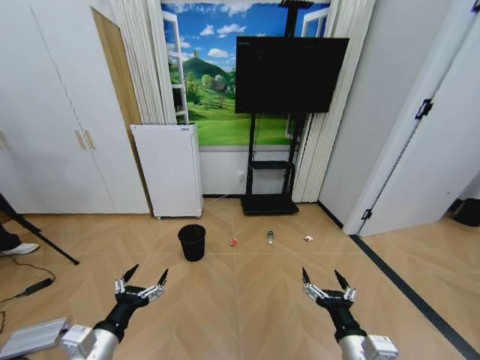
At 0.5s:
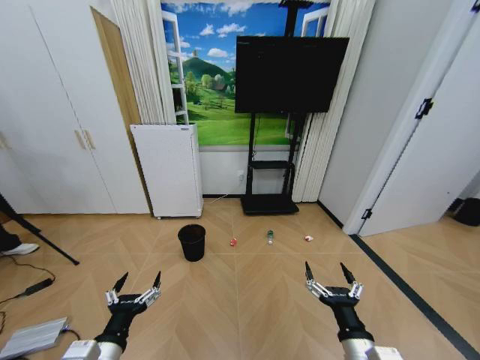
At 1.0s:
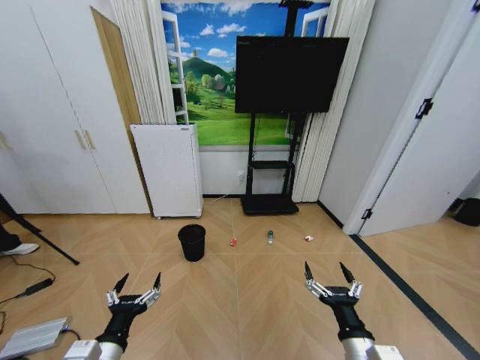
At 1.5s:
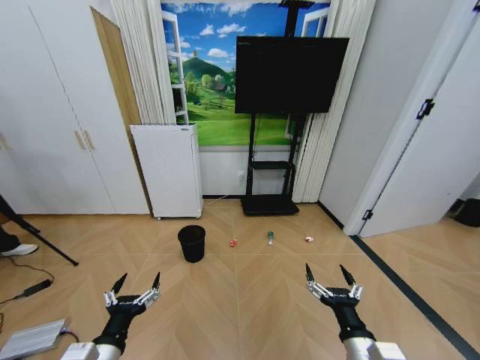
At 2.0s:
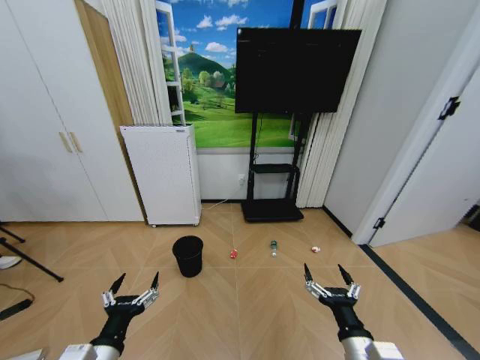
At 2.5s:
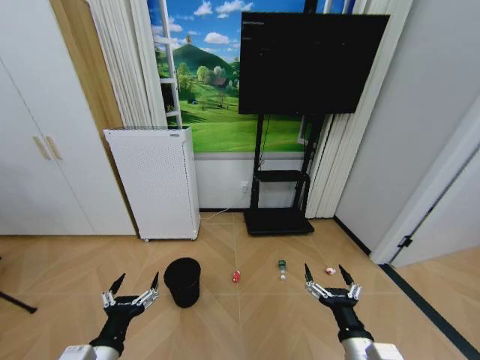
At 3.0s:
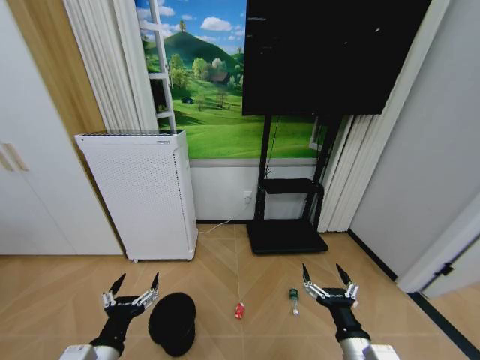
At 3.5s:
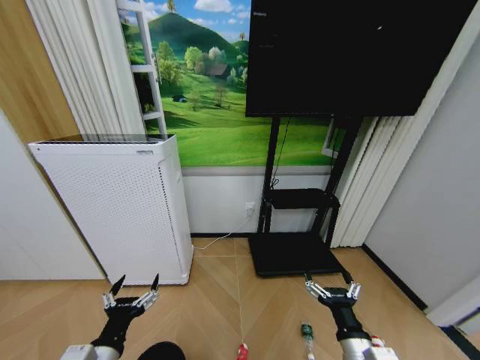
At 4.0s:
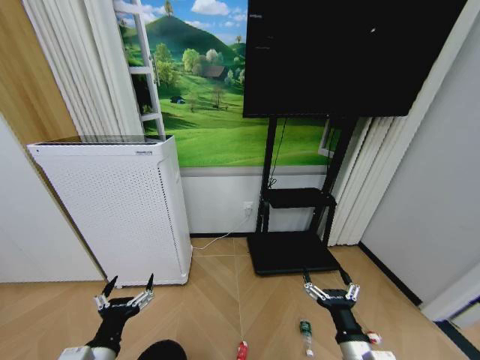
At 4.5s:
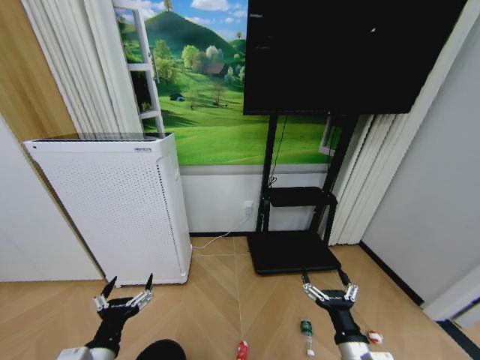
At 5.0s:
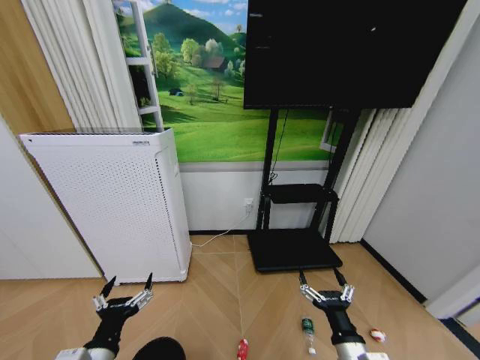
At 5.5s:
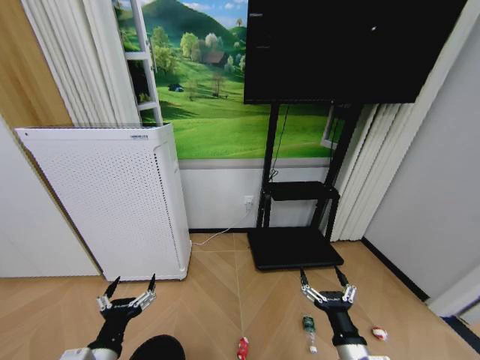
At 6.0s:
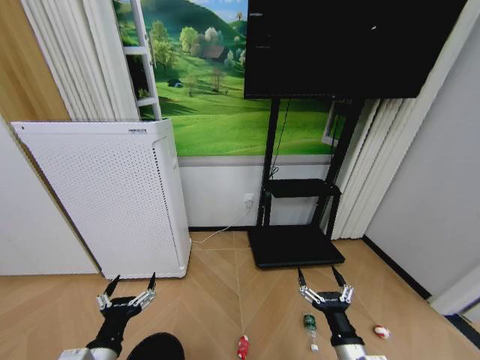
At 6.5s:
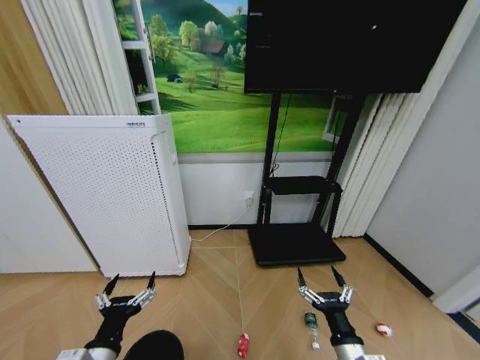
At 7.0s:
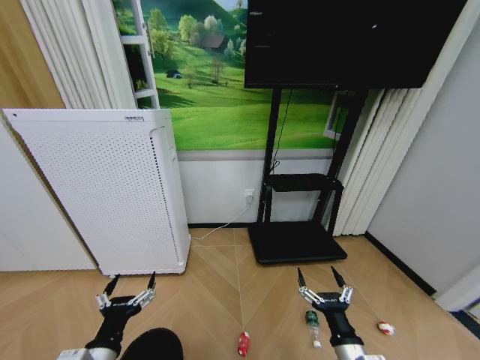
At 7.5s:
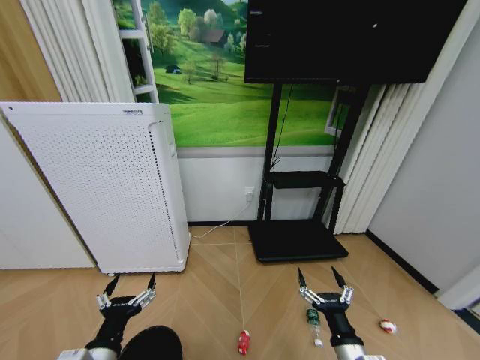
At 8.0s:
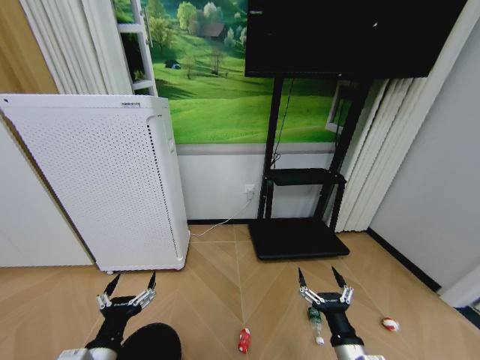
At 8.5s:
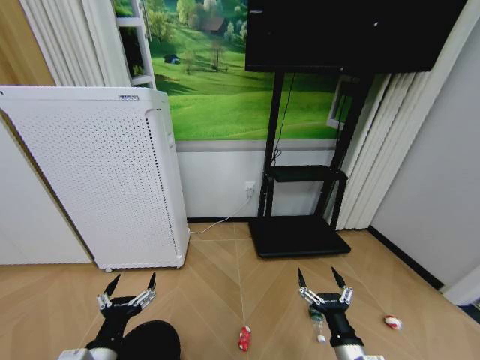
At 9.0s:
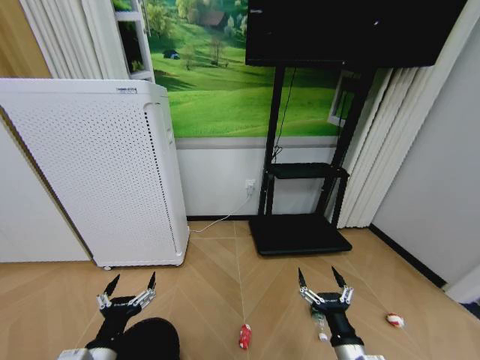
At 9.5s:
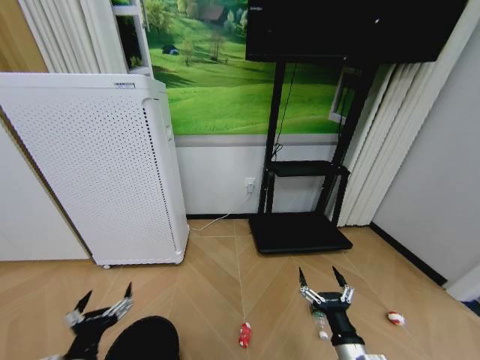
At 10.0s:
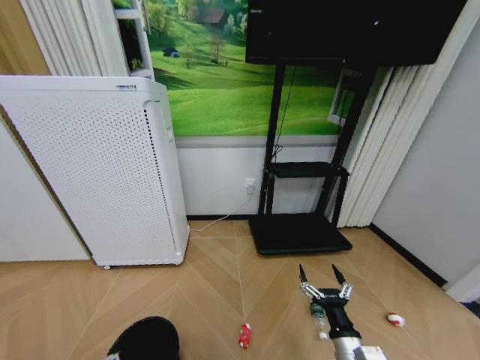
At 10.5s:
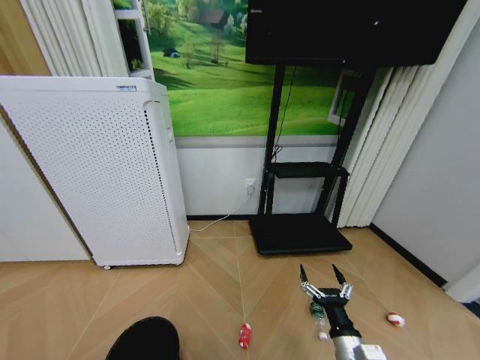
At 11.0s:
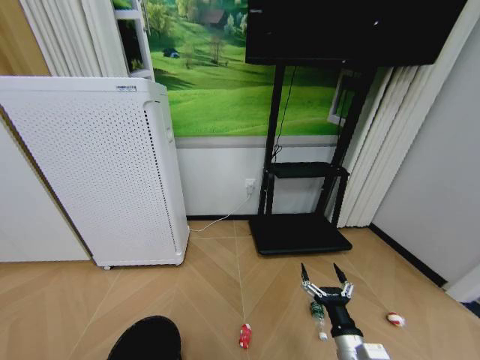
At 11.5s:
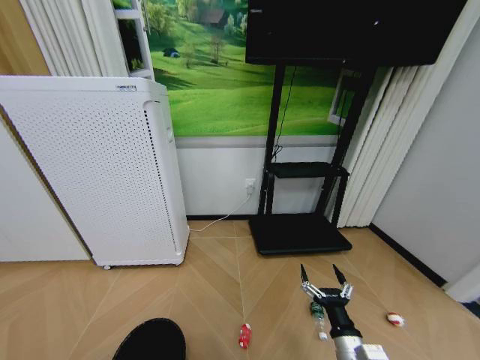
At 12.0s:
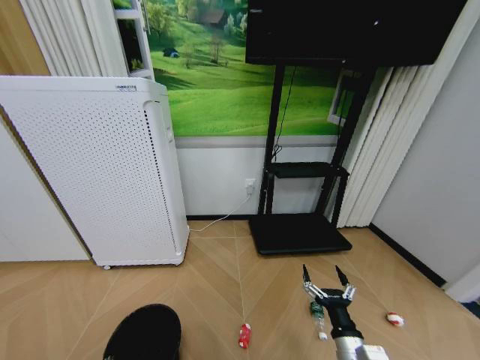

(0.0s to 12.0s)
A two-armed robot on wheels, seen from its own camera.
Task of the whole recording: Pick up the trash bin and place the garbage on the floor into it.
6.0s - 8.0s: Neither gripper changes place.
8.0s - 10.0s: The left gripper heads to the left, covering approximately 10 cm.
10.0s - 12.0s: The left gripper goes some 5 cm downward, and closes.

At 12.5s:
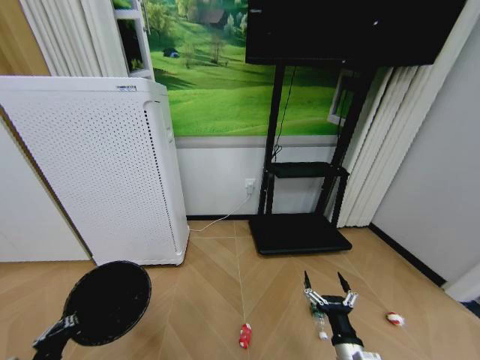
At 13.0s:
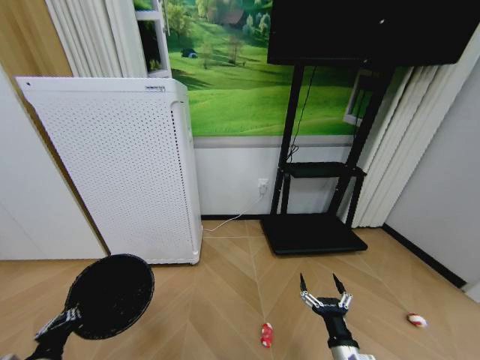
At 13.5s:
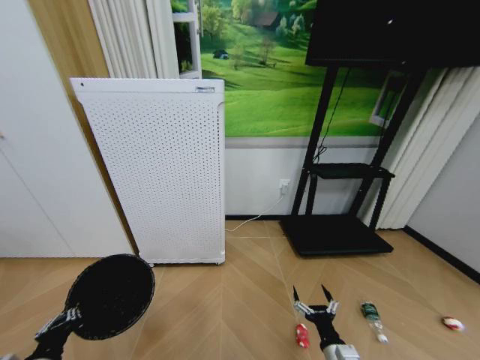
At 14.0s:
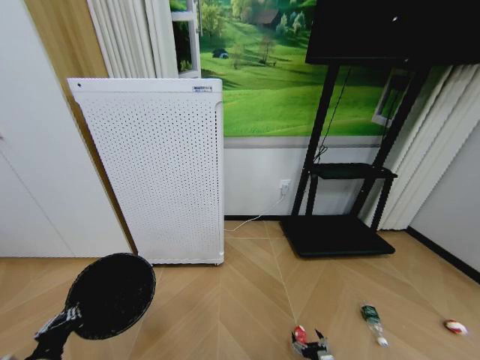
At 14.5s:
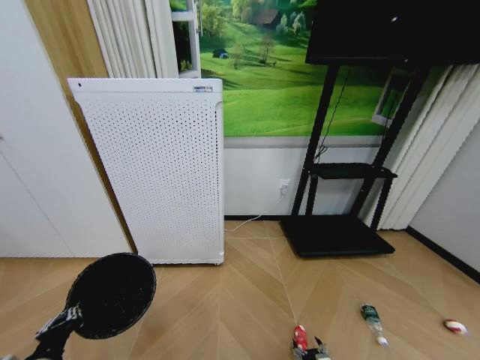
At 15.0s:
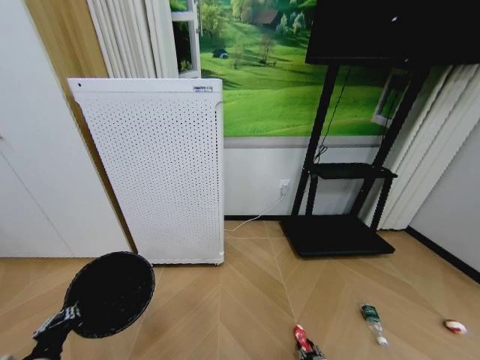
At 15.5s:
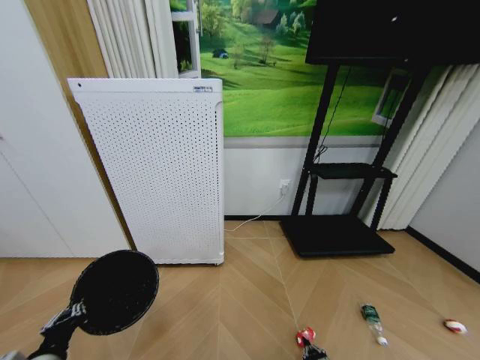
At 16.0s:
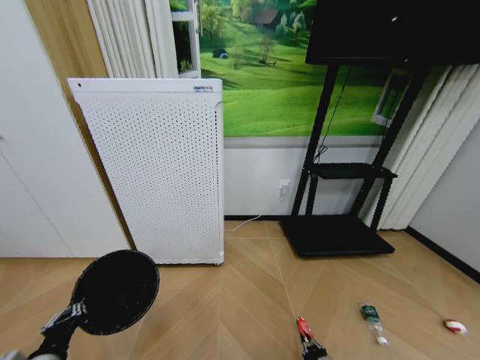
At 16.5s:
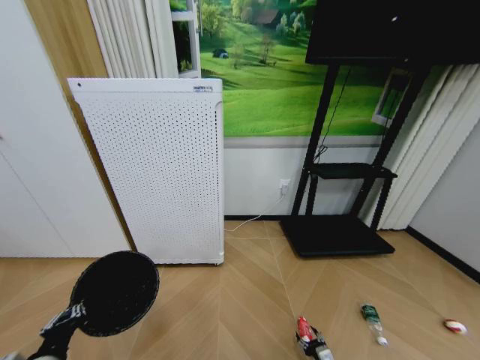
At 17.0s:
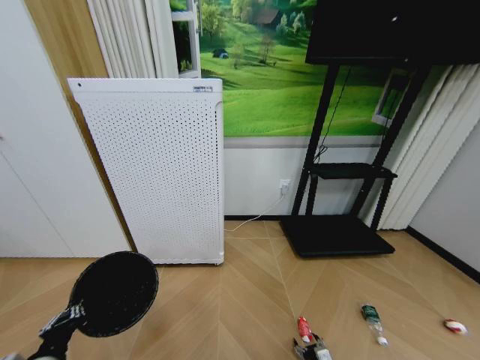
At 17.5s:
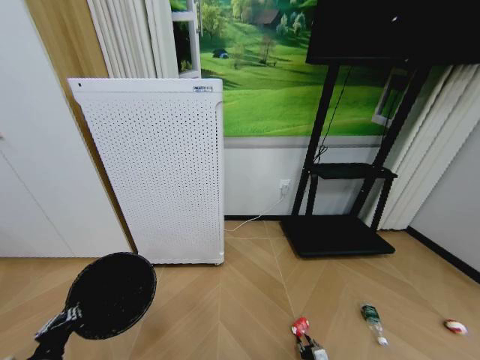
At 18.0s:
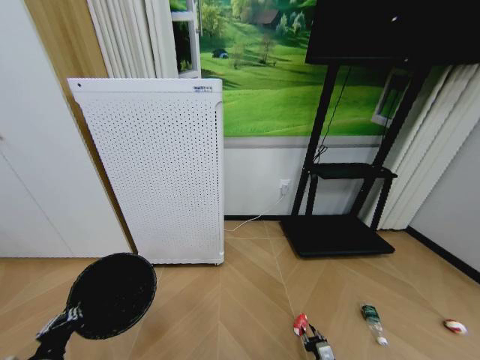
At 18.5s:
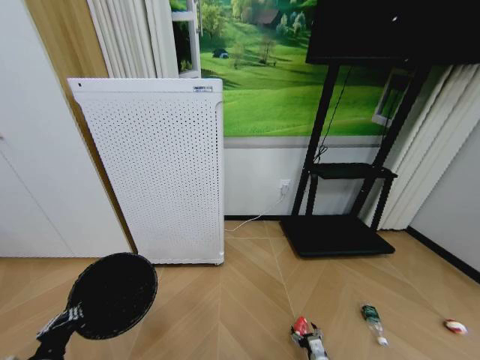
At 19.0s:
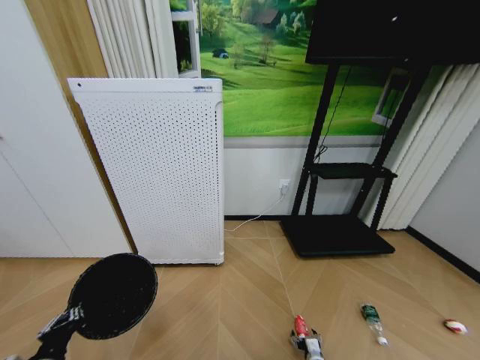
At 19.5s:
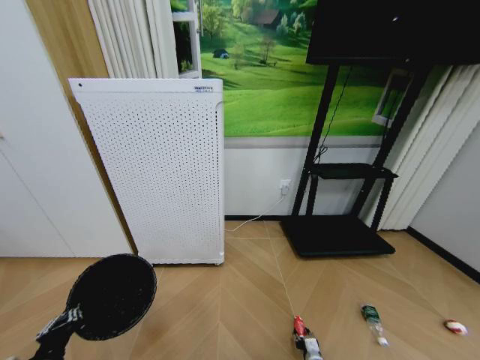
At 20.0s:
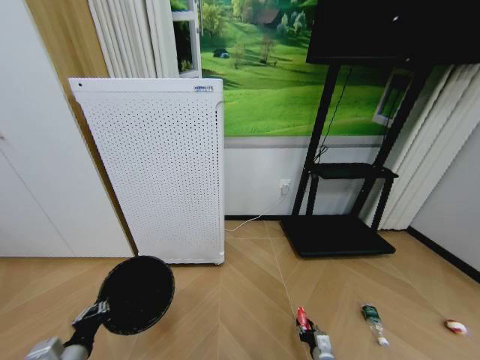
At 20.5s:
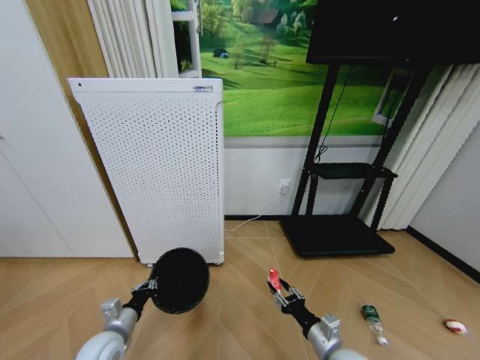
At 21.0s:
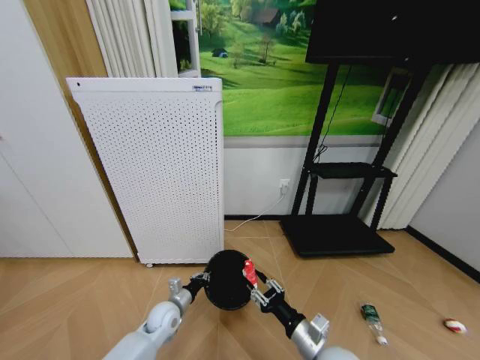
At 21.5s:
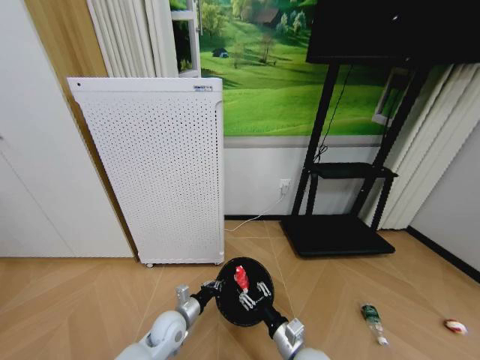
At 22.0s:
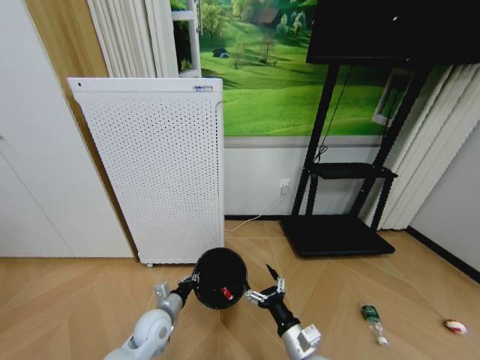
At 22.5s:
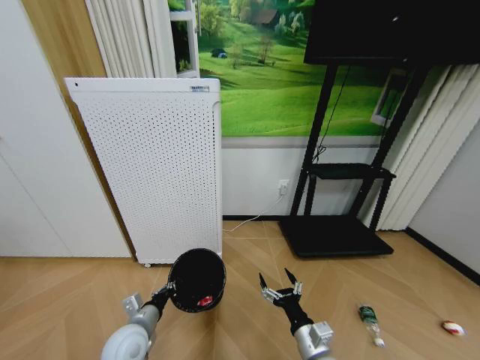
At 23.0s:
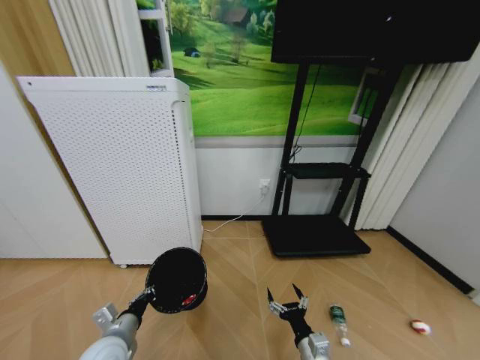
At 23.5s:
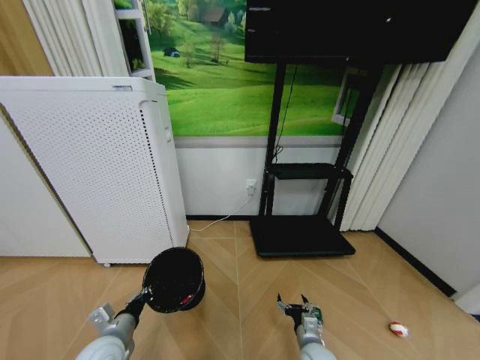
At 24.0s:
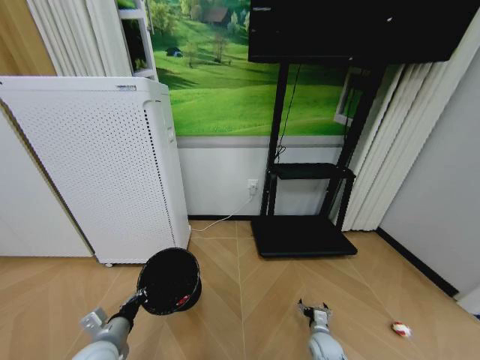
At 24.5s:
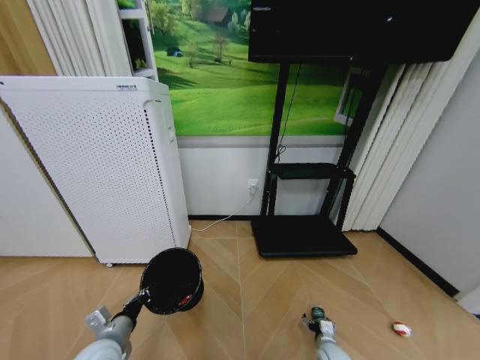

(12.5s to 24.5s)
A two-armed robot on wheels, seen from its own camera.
Task of the whole recording: Pick up the trash bin and place the garbage on the floor into it.
12.5s - 14.5s: The right gripper shifts roughly 20 cm downward.
18.5s - 20.5s: The right gripper is displaced upward by some 20 cm, and closes, while the left gripper travels forward and downward by about 15 cm.
20.5s - 22.5s: The left gripper goes roughly 5 cm to the right. The right gripper goes roughly 5 cm to the left, and opens.
22.5s - 24.5s: The left gripper shifts by about 5 cm. The right gripper is displaced downward and to the right by approximately 25 cm.

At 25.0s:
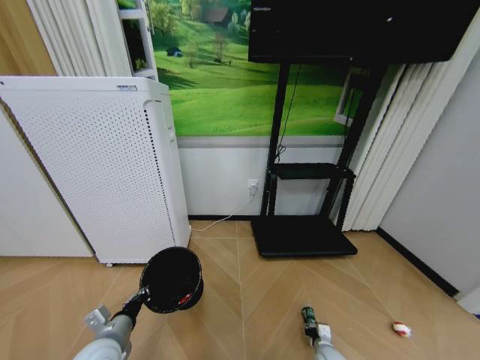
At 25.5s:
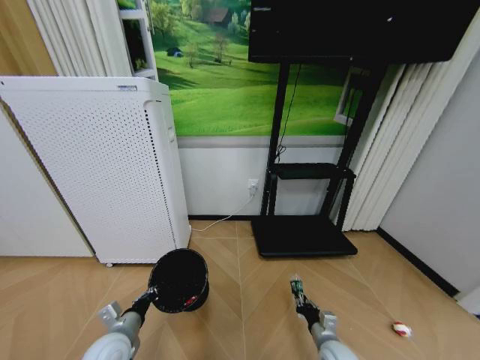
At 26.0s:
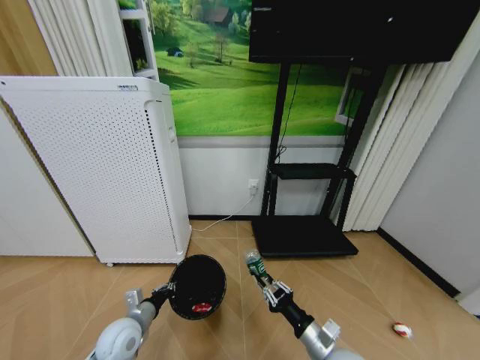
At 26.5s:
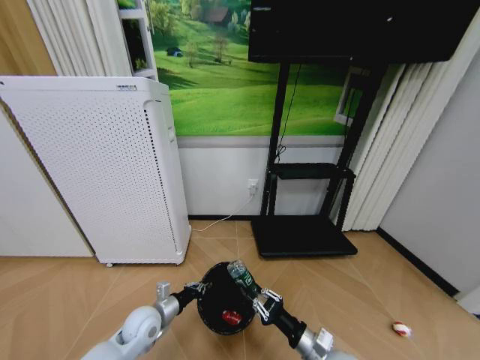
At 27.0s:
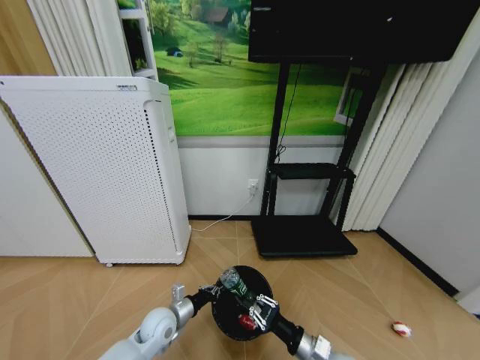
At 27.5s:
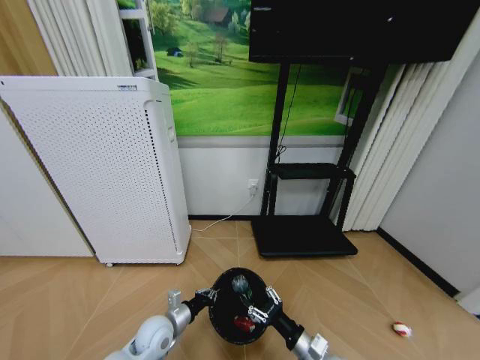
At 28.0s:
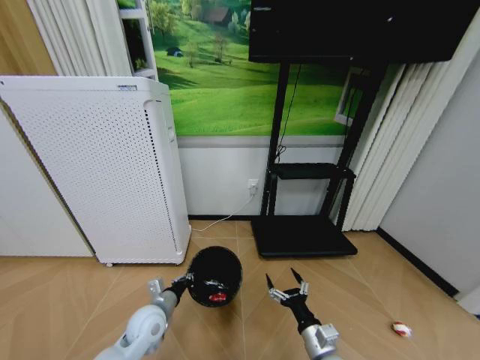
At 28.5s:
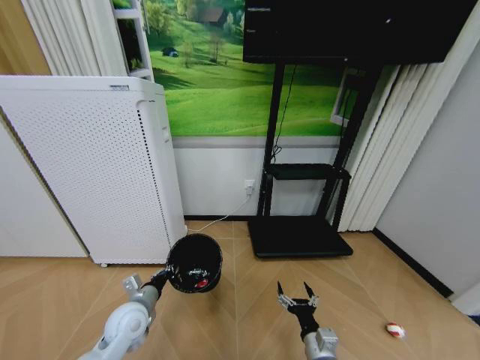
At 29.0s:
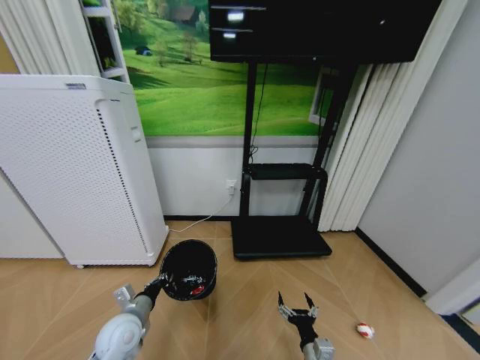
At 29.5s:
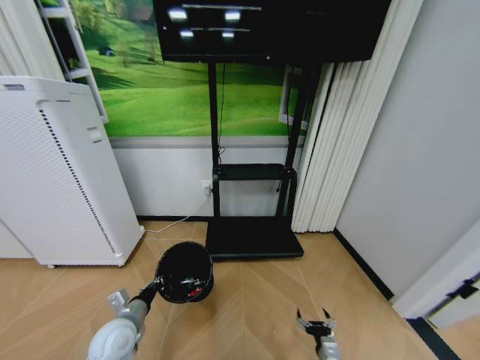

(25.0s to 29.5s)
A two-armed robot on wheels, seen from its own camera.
Task of the whole recording: Pick up the trash bin and place the garbage on the floor into it.
25.0s - 27.0s: The left gripper shifts about 15 cm forward, to the right and downward. The right gripper shifts roughly 20 cm upward and to the left, and closes up.
27.0s - 29.5s: The left gripper goes roughly 10 cm to the left, upward and backward. The right gripper travels downward and to the right by about 15 cm, and opens up.
